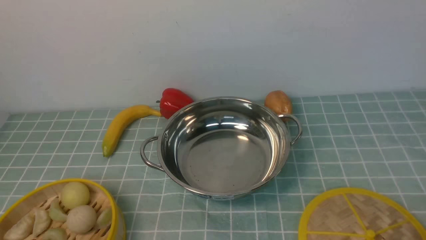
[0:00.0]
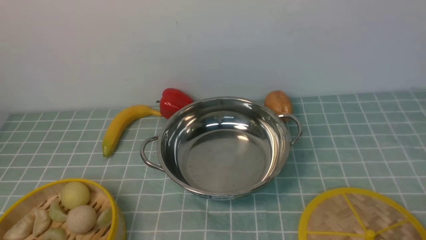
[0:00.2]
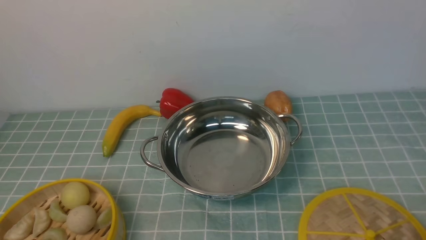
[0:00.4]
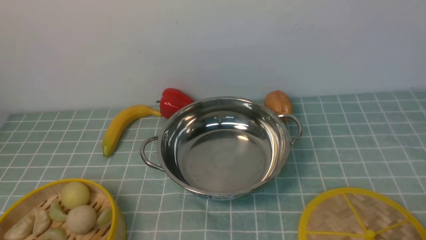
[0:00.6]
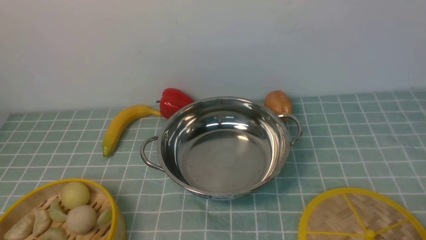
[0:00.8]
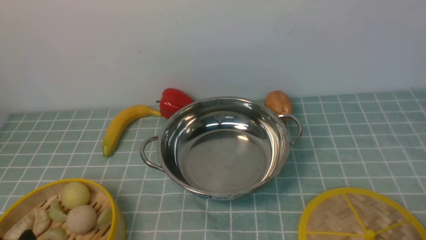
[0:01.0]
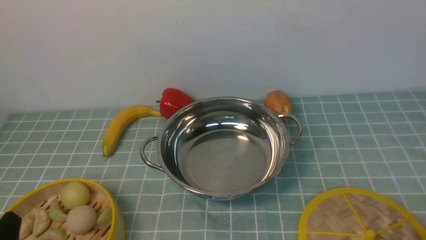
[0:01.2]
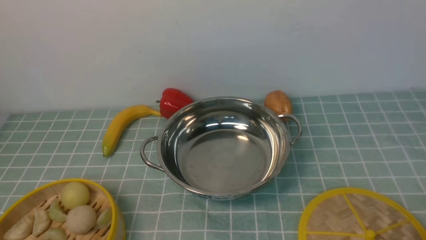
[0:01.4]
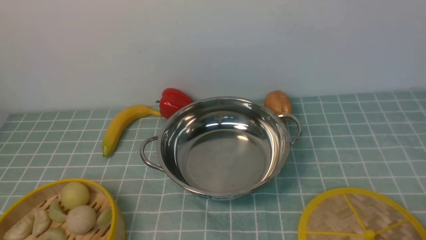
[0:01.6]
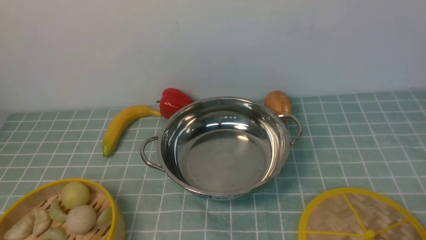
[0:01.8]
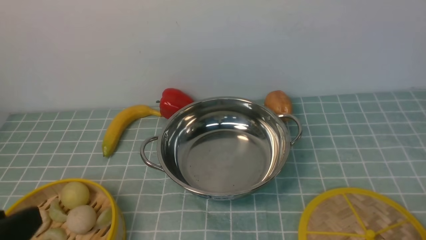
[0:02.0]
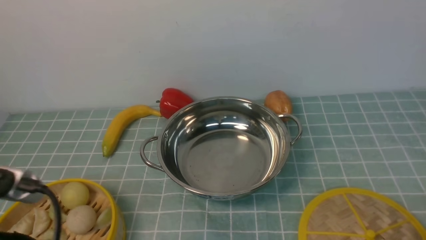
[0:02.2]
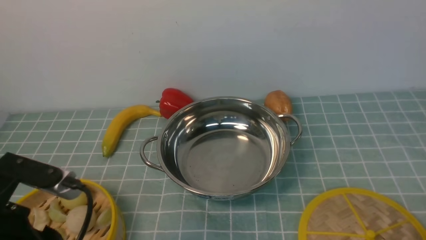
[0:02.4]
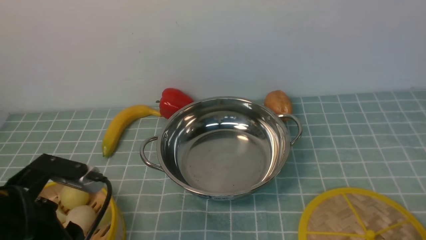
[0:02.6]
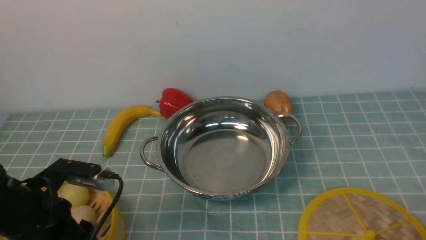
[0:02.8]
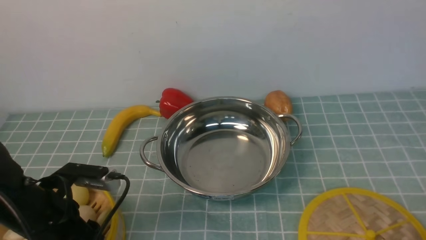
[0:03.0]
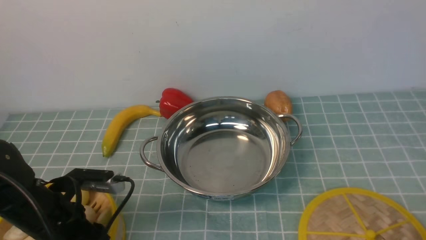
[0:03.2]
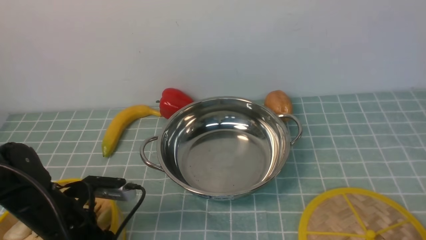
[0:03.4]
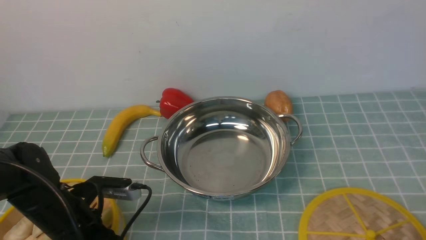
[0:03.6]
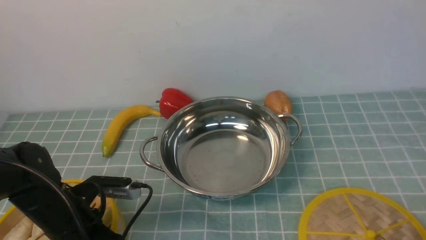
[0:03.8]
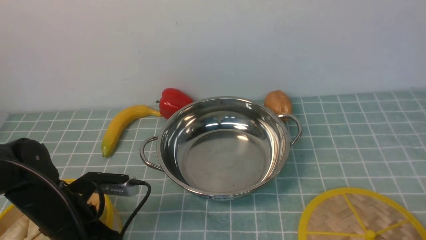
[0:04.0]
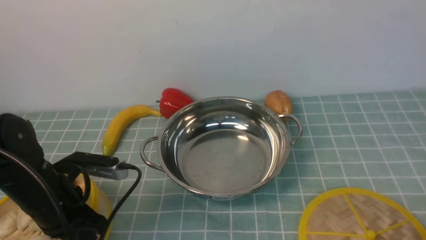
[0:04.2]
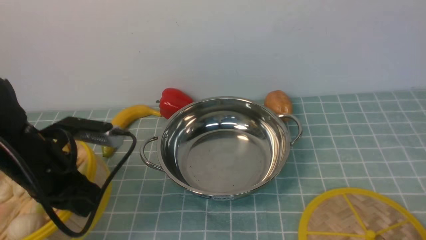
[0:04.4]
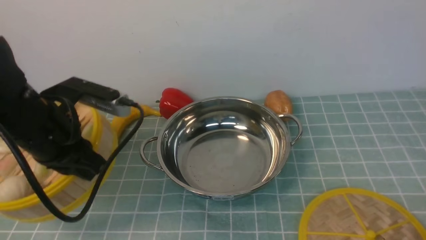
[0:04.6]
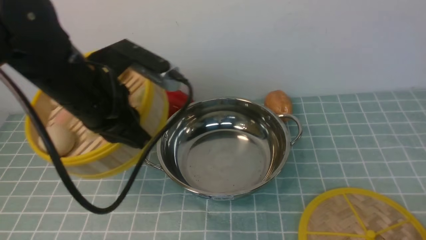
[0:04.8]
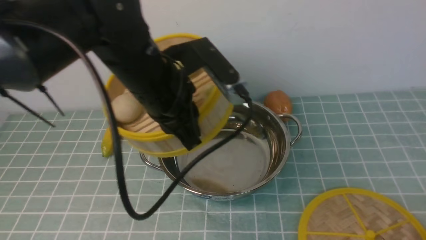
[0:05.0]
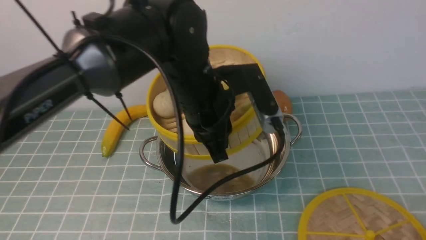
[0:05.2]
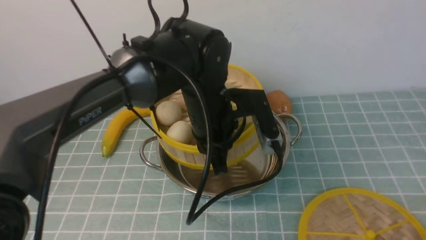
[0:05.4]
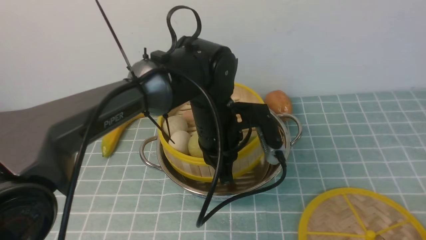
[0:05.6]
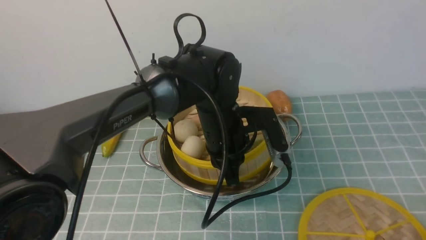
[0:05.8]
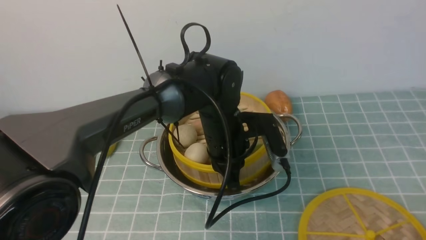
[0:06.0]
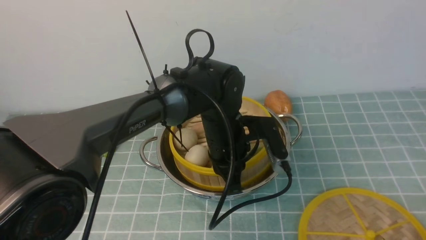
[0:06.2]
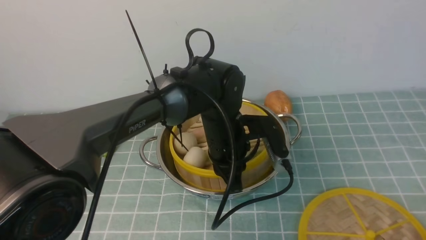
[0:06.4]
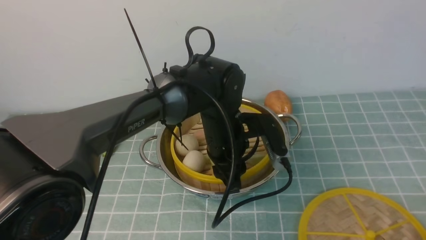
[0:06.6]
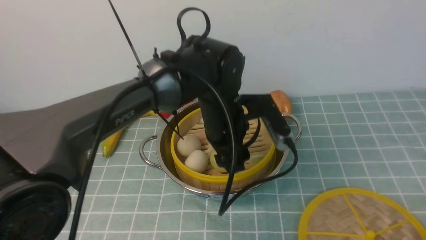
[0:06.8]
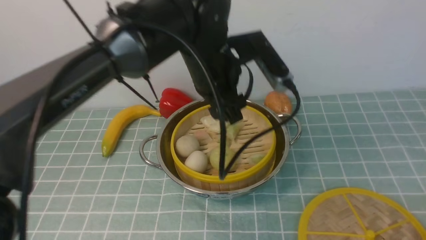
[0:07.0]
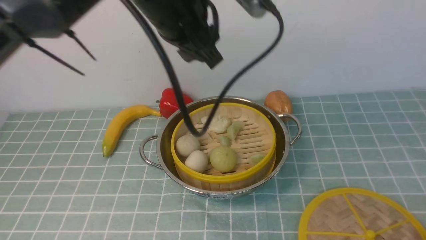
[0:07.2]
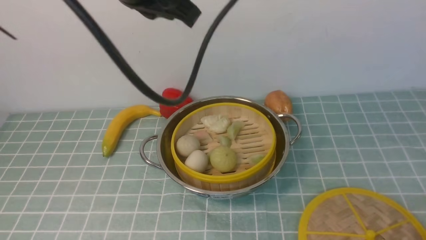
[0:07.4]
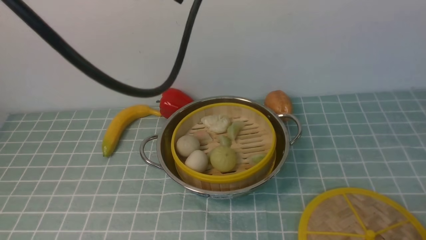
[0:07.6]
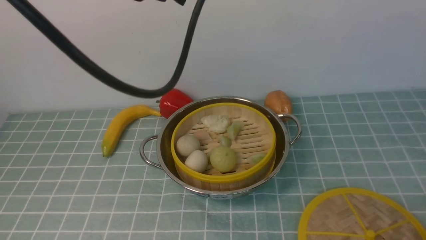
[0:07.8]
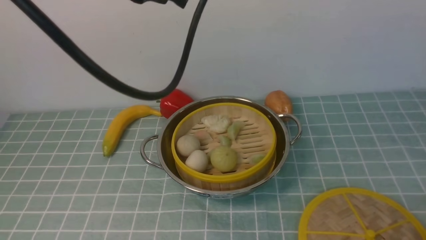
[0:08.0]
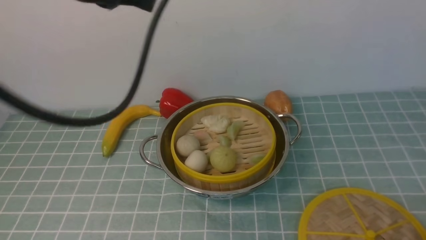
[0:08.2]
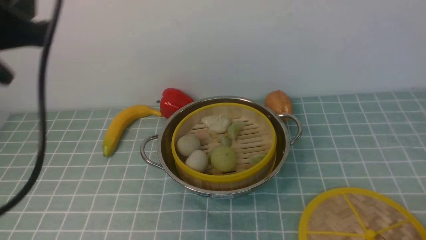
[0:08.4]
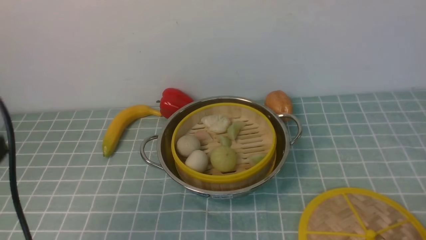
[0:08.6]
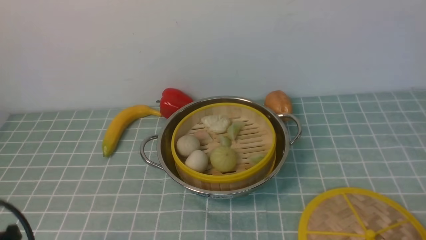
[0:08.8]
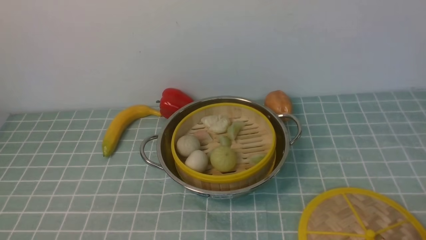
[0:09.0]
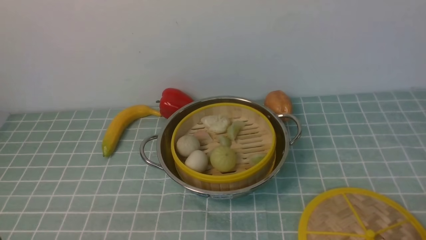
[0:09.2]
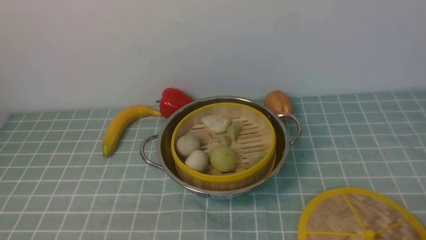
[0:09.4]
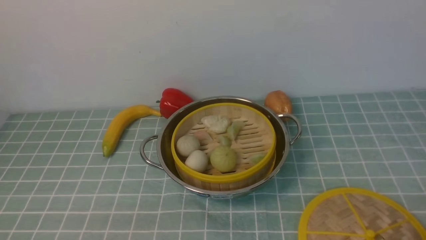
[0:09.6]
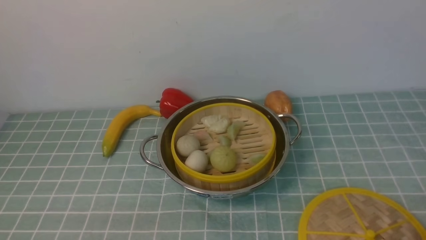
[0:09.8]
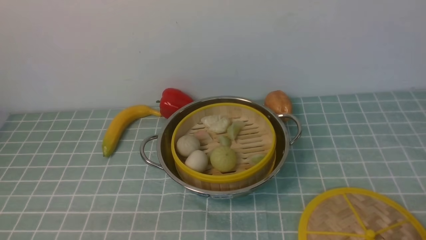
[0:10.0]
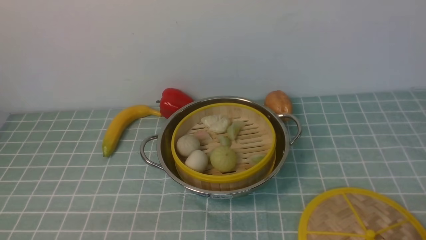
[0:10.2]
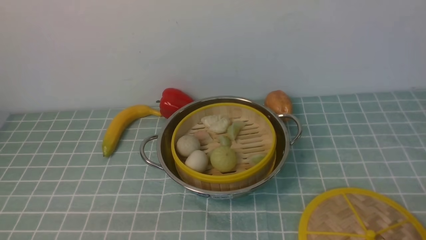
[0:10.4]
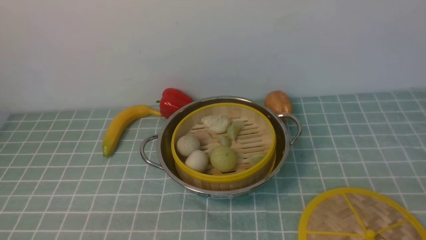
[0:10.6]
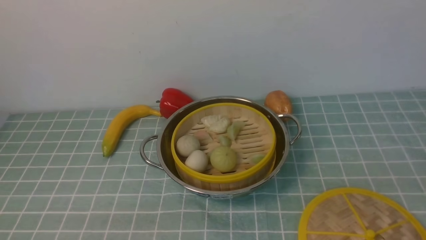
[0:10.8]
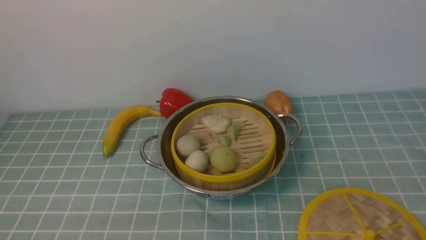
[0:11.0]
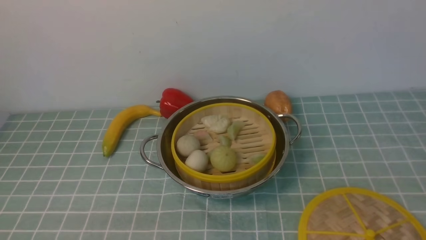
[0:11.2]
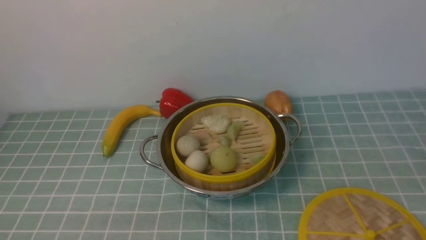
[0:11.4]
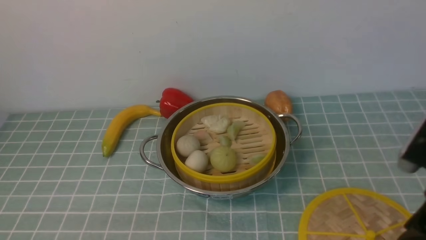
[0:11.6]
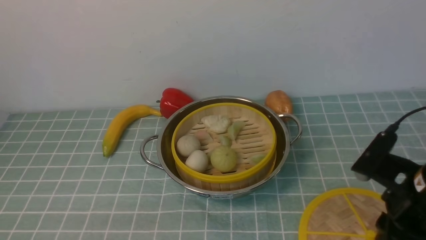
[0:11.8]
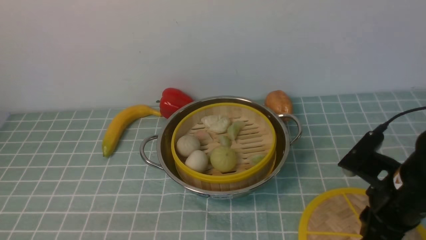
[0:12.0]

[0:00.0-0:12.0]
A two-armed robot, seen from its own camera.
Task of the whole recording: place the steamer in the pot on the blue tablecloth, and put the lid on the steamer.
Step, 0:00.0 to 0:04.4: use the left arm to lift the steamer closest to it.
Step, 0:04.6 to 0:07.0: use the left arm to put the steamer into the iron steamer pot in the middle.
0:01.6 to 0:03.0: The left gripper is displaced forward and downward by some 20 cm.
0:03.0 to 0:04.4: The left gripper goes approximately 5 cm upward, and closes.
0:04.4 to 0:06.0: The left gripper heads to the right and forward, covering approximately 25 cm.
0:06.0 to 0:07.6: The left gripper is displaced upward by some 25 cm, and opens, then closes once more.
0:07.6 to 0:09.0: The left gripper moves downward, backward and to the left, some 40 cm.
0:10.4 to 0:12.0: The right gripper shifts about 20 cm forward and to the left.

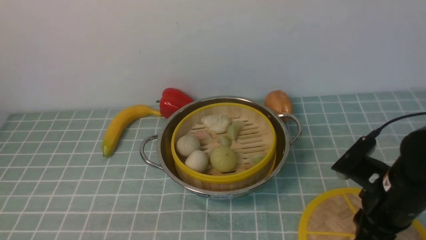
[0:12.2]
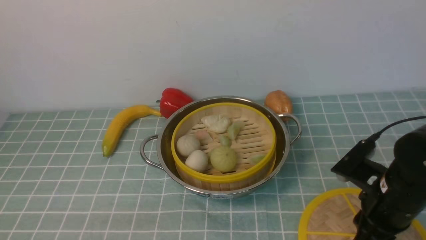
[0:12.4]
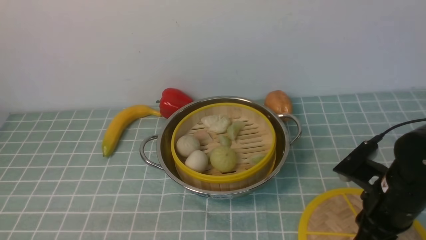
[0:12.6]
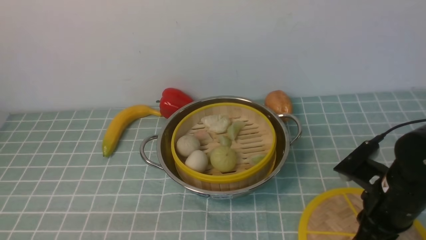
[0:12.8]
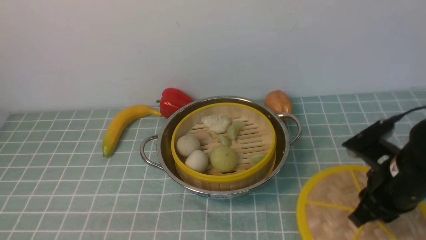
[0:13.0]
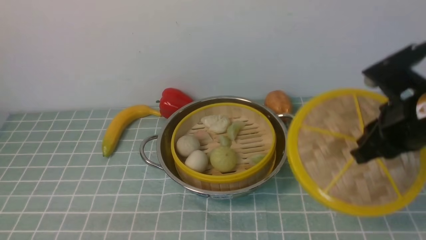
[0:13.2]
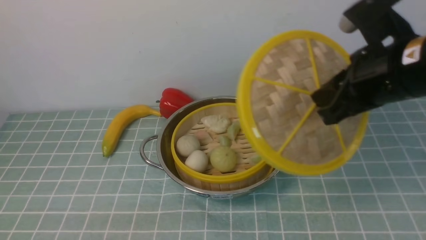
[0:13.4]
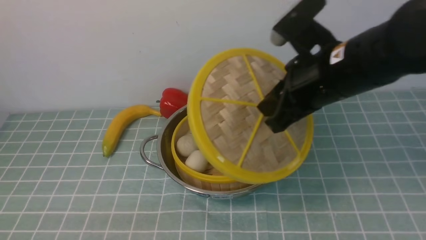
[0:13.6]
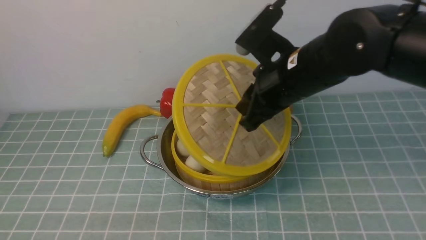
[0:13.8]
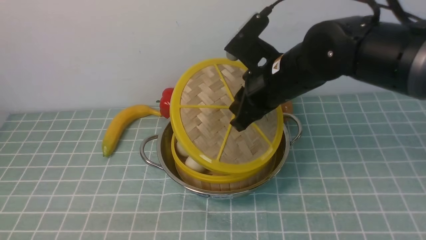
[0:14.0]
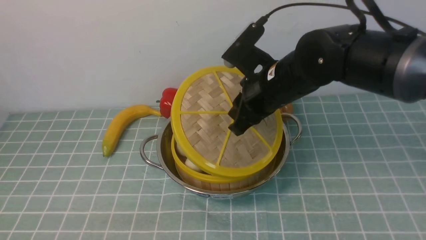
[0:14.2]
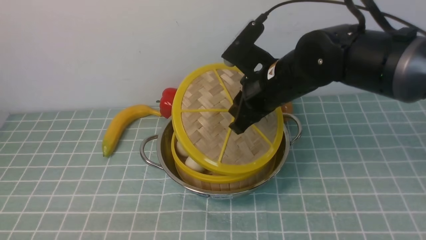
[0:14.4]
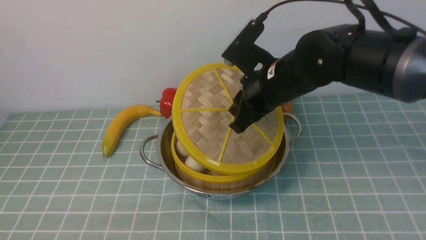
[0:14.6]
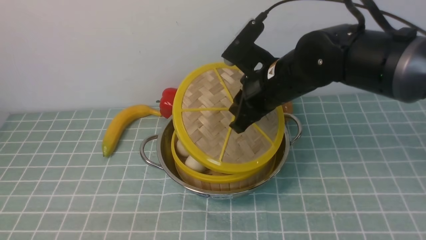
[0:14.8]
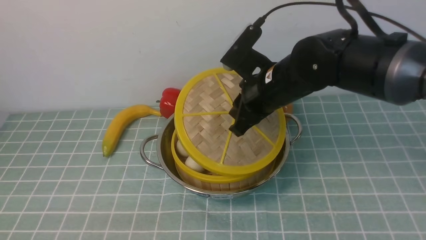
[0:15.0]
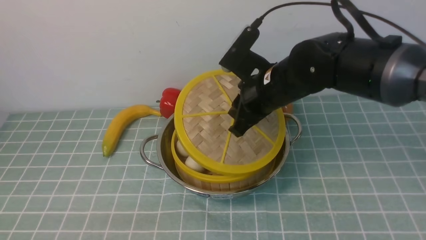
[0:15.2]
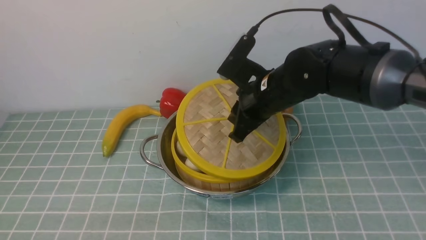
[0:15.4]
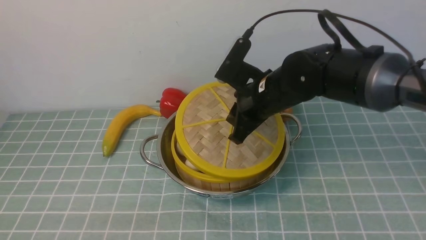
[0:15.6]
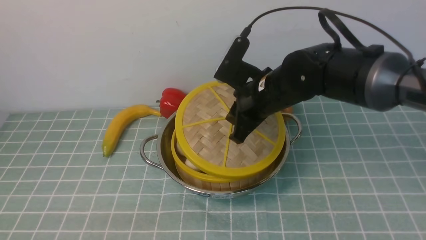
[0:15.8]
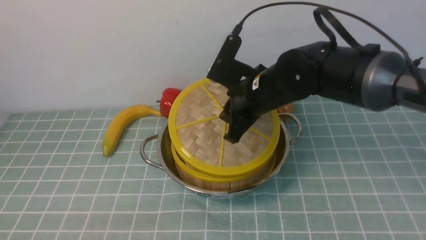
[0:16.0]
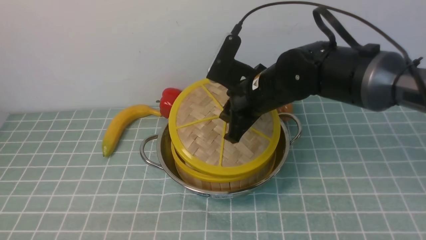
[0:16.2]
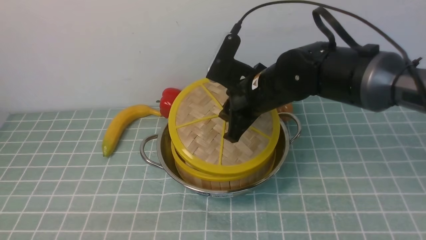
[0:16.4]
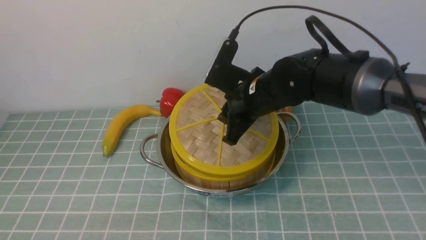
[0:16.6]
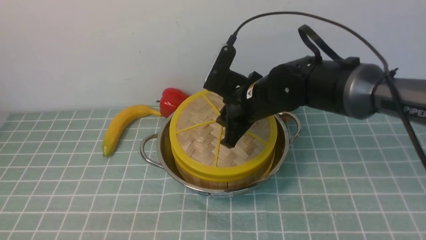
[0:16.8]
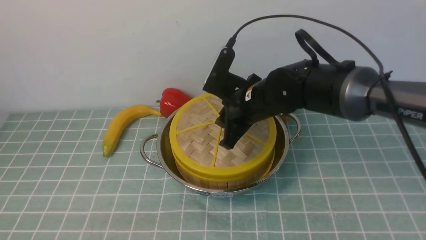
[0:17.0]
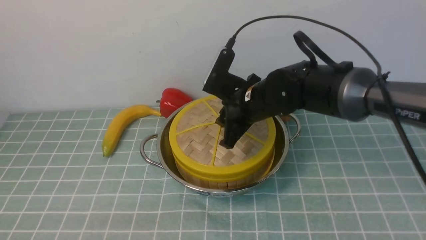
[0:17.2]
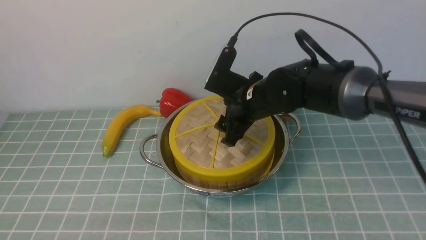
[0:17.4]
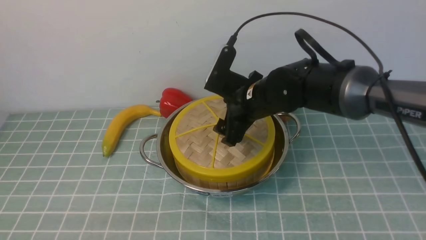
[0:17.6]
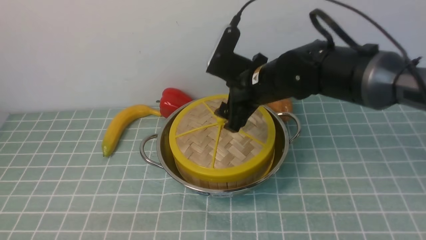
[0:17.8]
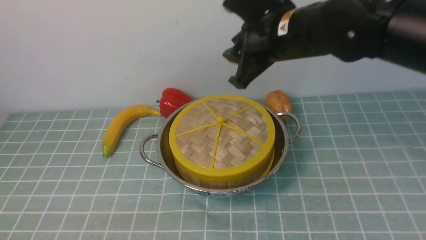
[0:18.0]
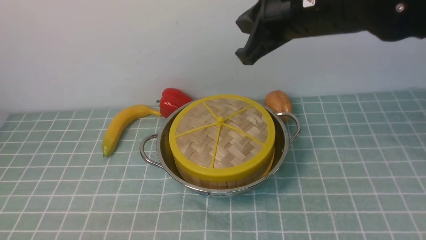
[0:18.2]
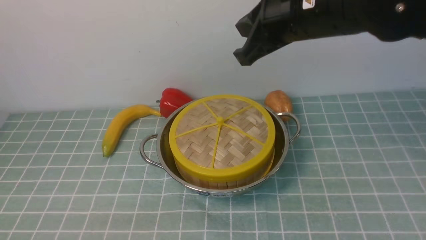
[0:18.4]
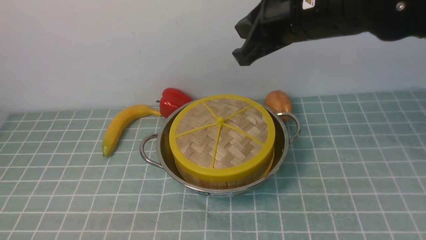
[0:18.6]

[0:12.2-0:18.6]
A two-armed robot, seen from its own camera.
Task of the whole recording: place the steamer in the pot on the blue tablecloth, and put the lid on the steamer.
Step, 0:13.4 to 0:18.0: use the right arm to place the steamer lid on the steamer.
0:12.2 to 0:13.8: The right gripper travels to the left, upward and forward by about 20 cm.
0:13.8 to 0:15.4: The right gripper moves downward, about 5 cm.
0:15.4 to 0:17.0: The grippers move only a little.
0:17.0 to 0:18.6: The right gripper goes some 15 cm upward, and closes its fingers.
